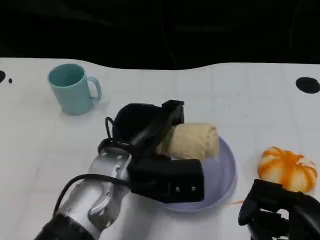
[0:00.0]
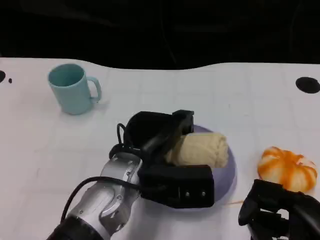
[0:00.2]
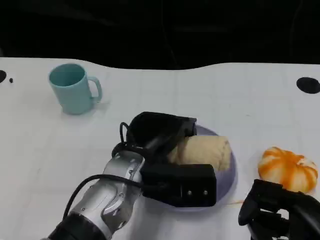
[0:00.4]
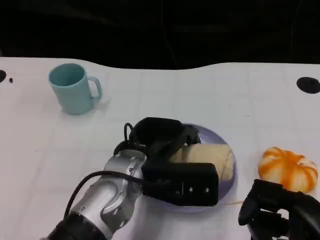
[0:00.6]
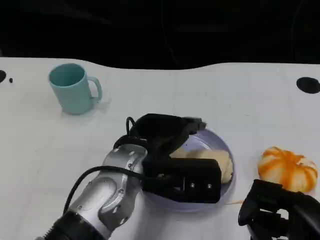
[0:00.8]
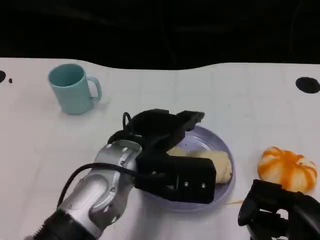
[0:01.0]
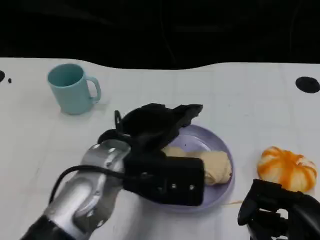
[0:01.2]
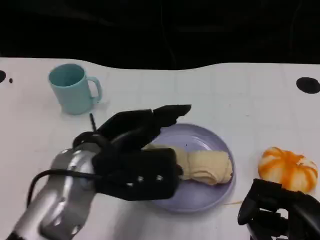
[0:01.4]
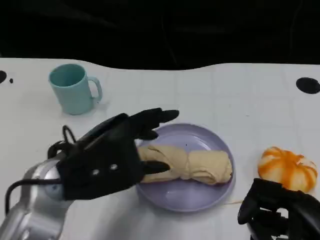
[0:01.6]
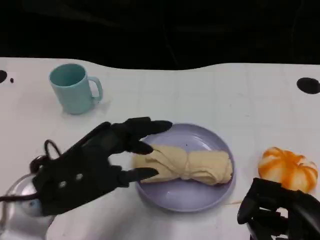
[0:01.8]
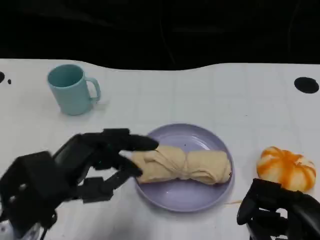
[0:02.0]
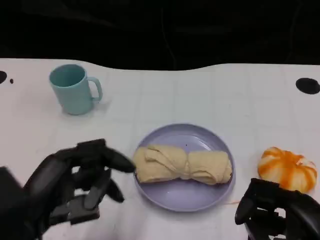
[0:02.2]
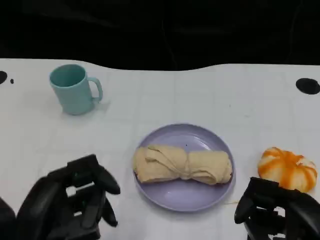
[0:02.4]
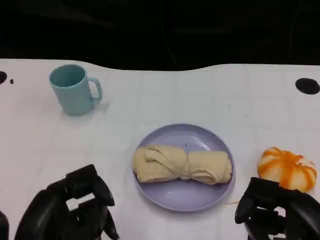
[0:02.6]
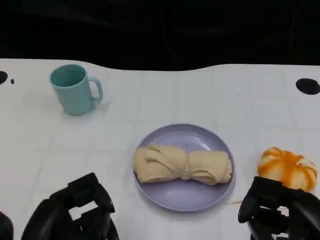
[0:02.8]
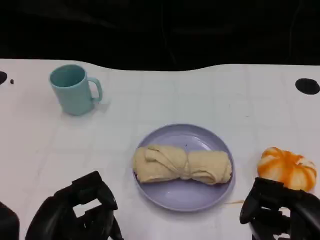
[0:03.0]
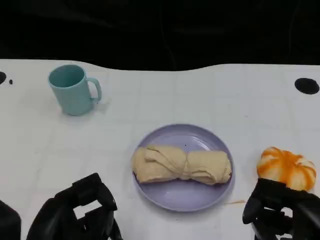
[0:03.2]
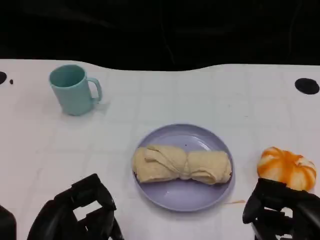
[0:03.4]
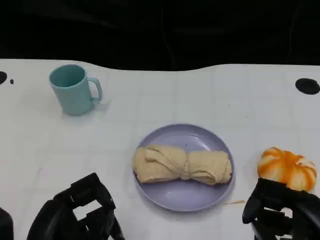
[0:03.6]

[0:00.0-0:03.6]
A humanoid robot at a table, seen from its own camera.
Task of the whole recording: Grasp the towel on the left side of the plate with the left hand and place it into the plate.
0:00.0 to 0:01.8: The left hand travels to the left and backward by some 10 cm.
0:01.8 to 0:03.6: The left hand travels backward and downward by about 10 cm.

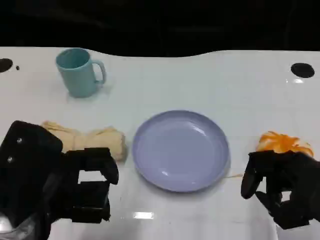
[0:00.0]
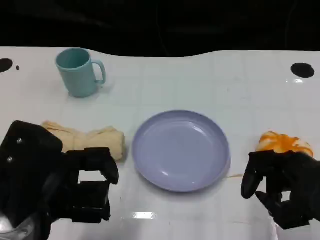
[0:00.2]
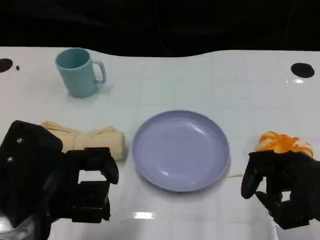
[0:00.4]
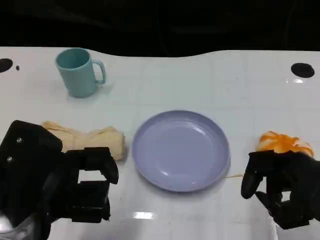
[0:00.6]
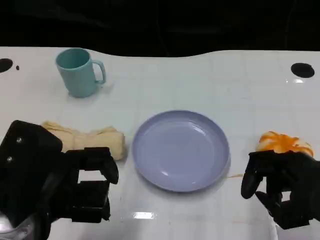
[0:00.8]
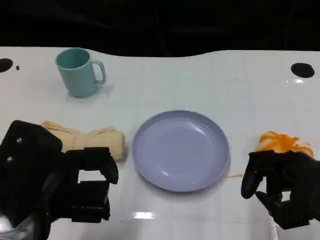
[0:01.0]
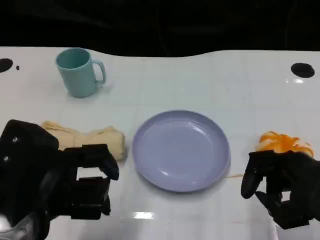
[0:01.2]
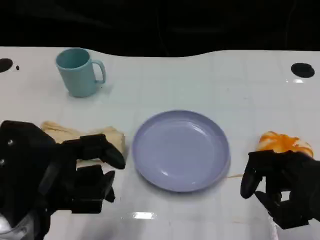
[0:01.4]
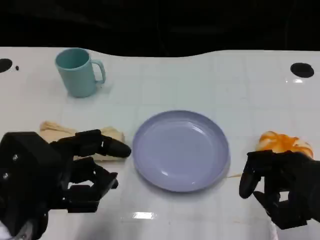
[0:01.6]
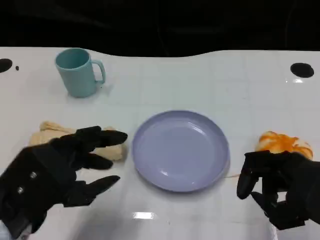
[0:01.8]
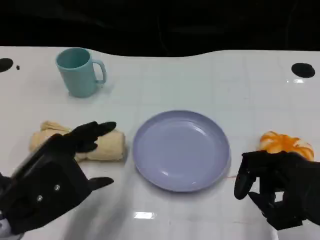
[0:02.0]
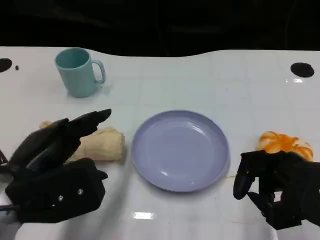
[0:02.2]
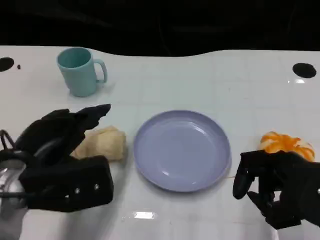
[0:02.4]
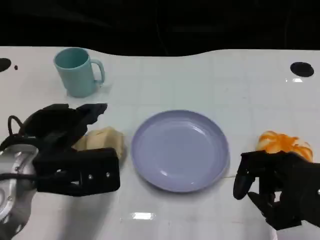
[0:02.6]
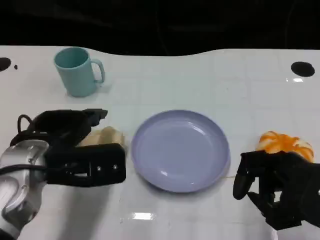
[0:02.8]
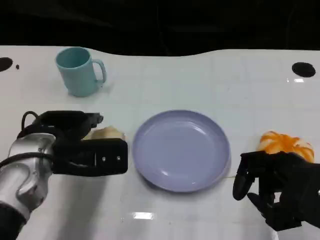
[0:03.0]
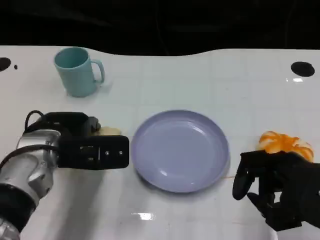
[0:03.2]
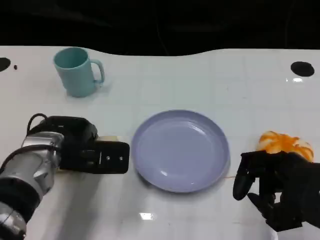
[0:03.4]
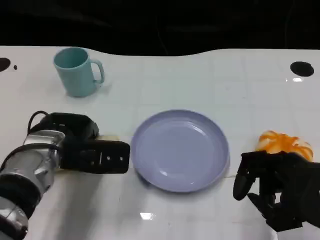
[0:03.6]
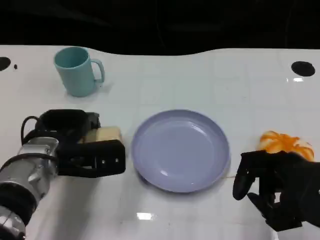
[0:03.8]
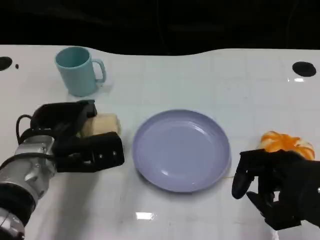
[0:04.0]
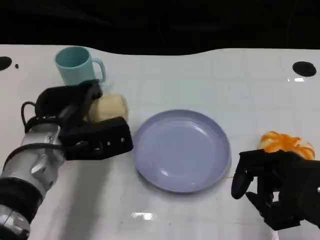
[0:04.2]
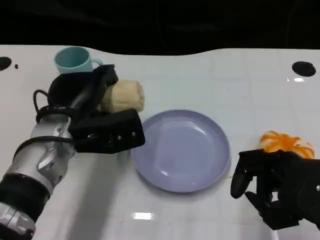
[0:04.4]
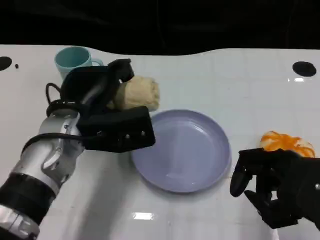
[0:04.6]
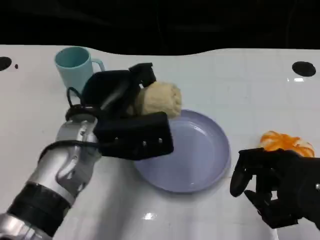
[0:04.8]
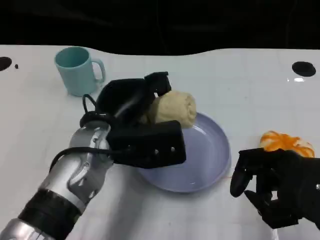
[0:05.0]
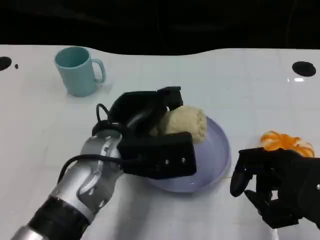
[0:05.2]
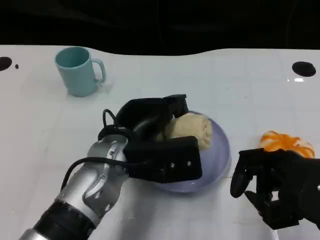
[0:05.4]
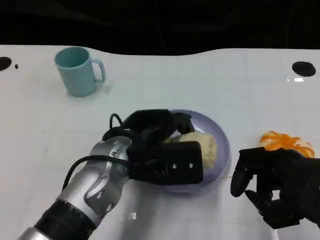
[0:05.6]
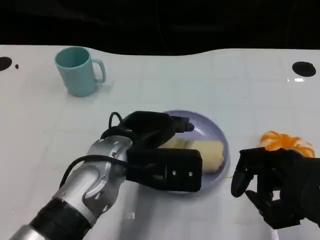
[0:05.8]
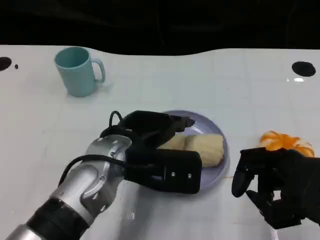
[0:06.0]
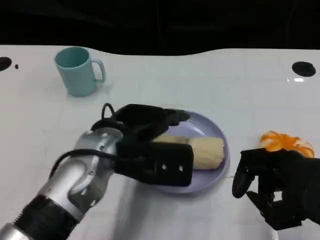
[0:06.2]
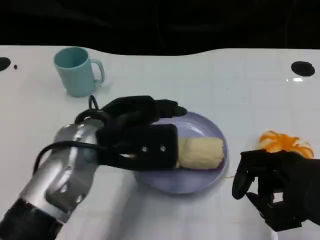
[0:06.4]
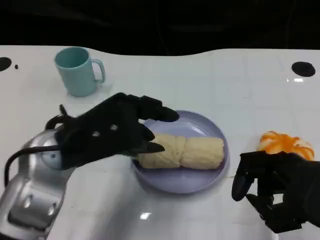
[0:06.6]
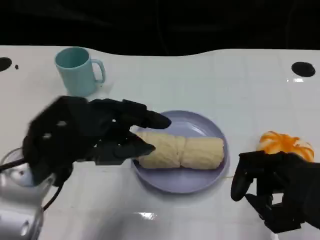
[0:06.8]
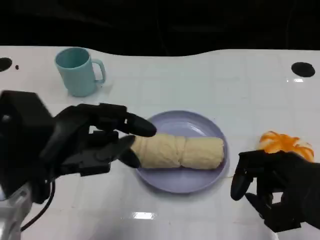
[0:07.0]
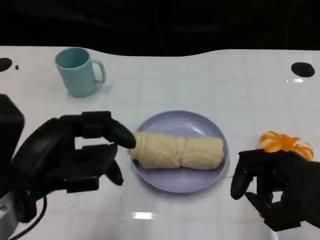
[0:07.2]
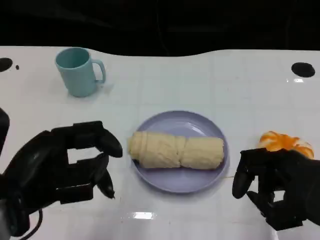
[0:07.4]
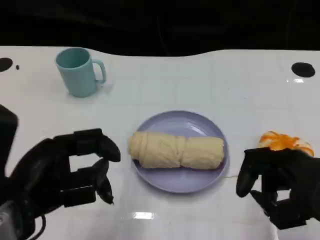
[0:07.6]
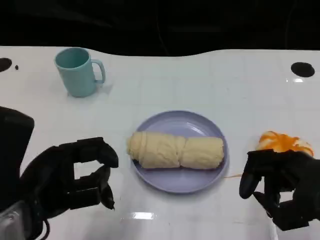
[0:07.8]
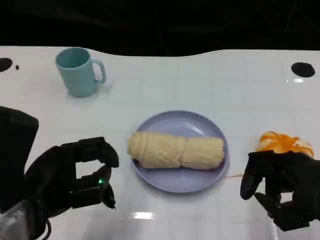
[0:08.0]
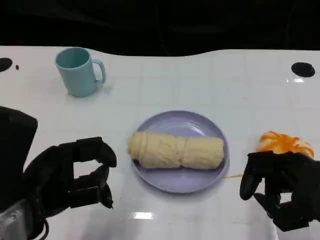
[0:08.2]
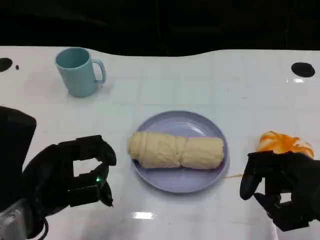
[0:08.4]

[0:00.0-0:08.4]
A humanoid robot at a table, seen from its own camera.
Task of the whole recording: Grasp the towel on the left side of the plate with the left hand and place it into the plate.
0:00.0 to 0:01.4: The hands move only a little.
0:01.4 to 0:02.8: The left hand travels forward by some 10 cm.
0:02.8 to 0:04.2: There are only small adjustments of the hands.
0:04.2 to 0:05.6: The left hand travels to the right by approximately 10 cm.
0:05.6 to 0:07.0: The left hand heads to the left, backward and upward, covering about 15 cm.

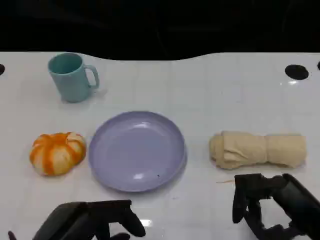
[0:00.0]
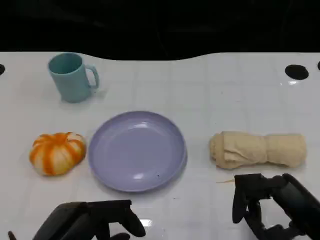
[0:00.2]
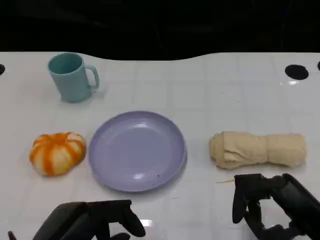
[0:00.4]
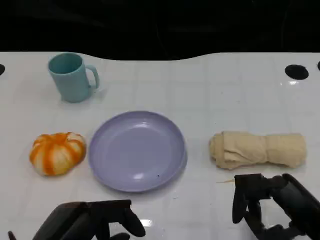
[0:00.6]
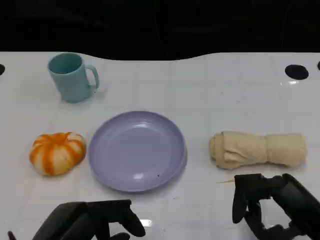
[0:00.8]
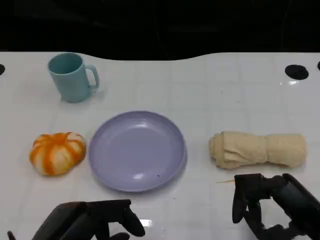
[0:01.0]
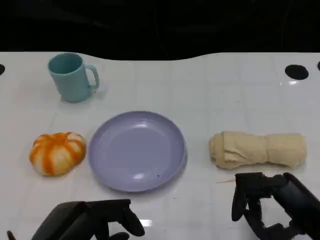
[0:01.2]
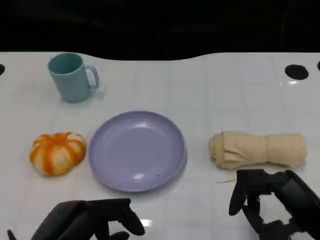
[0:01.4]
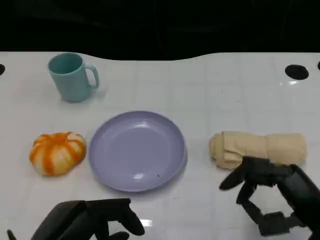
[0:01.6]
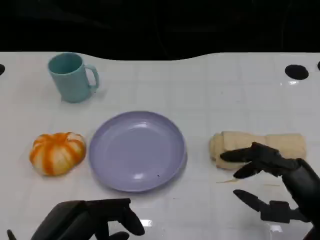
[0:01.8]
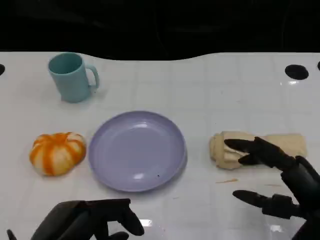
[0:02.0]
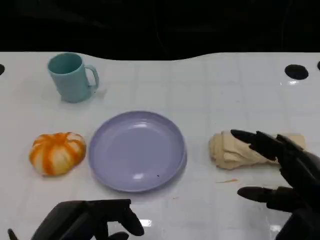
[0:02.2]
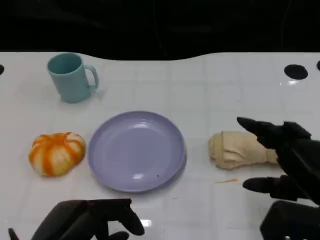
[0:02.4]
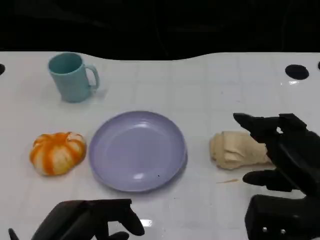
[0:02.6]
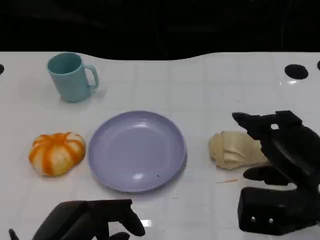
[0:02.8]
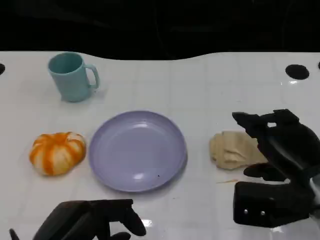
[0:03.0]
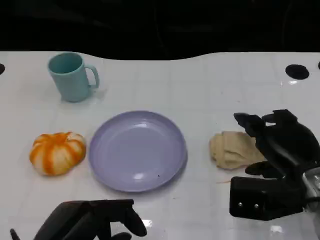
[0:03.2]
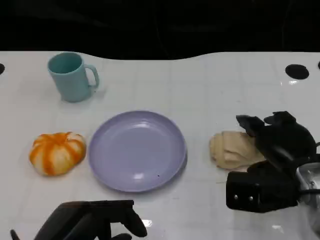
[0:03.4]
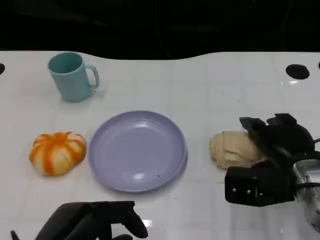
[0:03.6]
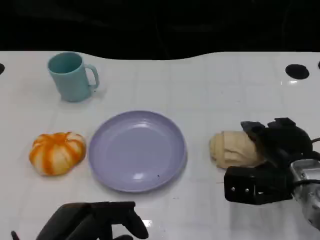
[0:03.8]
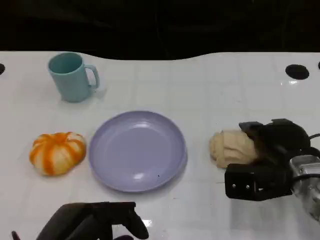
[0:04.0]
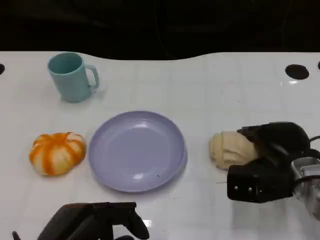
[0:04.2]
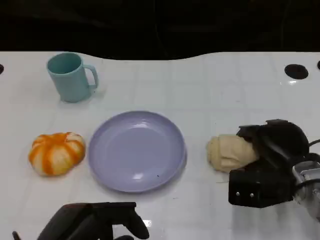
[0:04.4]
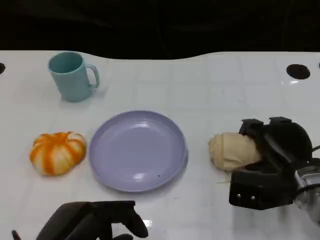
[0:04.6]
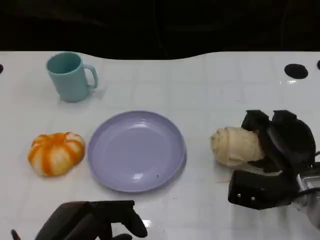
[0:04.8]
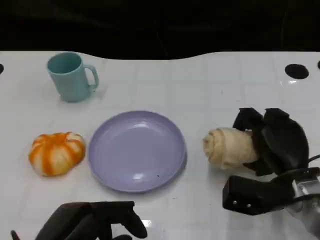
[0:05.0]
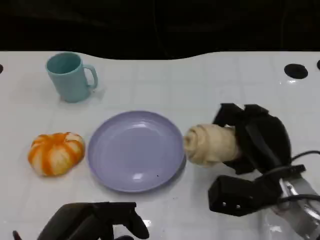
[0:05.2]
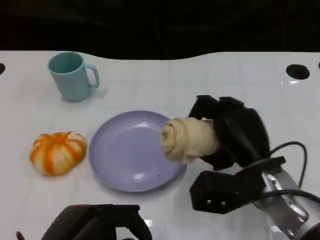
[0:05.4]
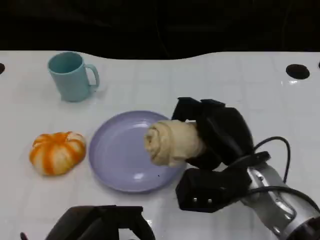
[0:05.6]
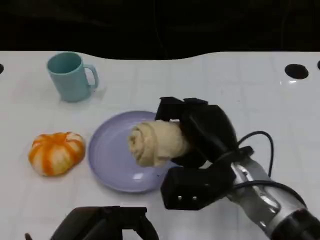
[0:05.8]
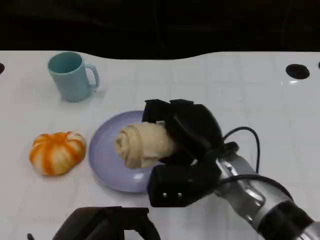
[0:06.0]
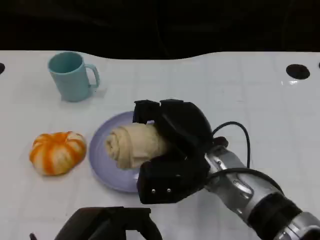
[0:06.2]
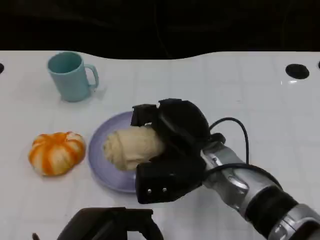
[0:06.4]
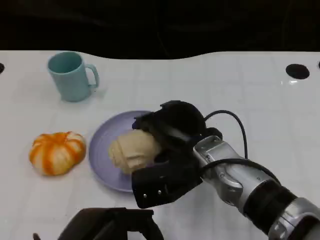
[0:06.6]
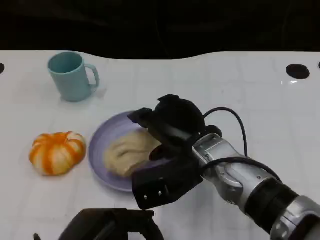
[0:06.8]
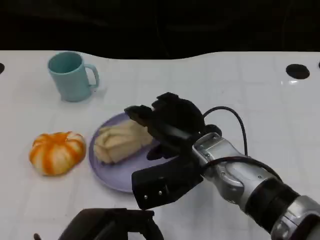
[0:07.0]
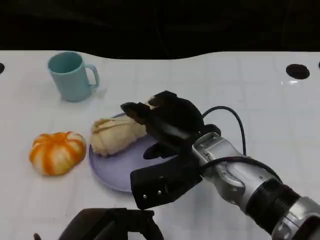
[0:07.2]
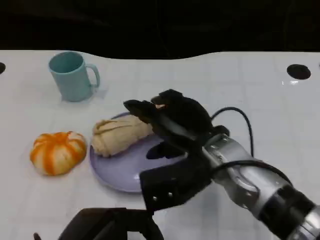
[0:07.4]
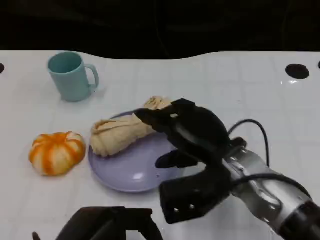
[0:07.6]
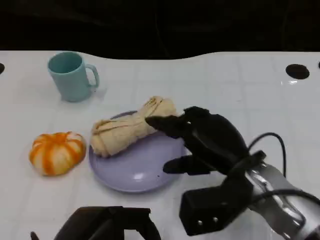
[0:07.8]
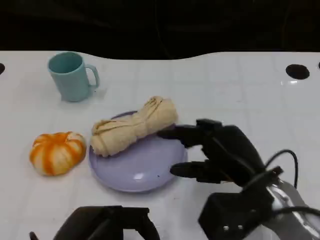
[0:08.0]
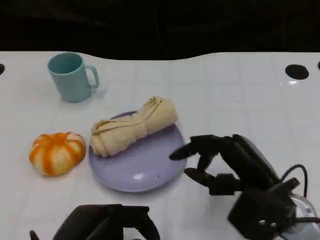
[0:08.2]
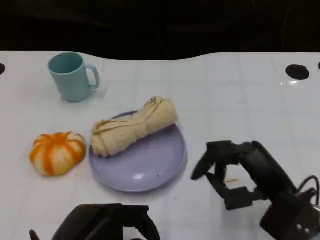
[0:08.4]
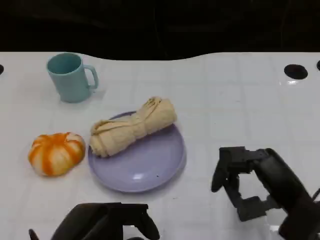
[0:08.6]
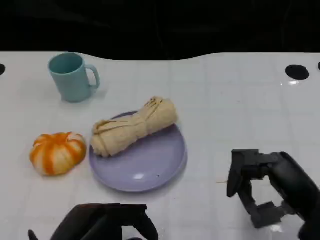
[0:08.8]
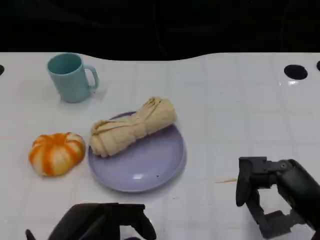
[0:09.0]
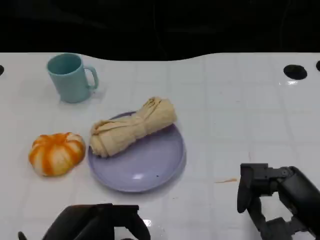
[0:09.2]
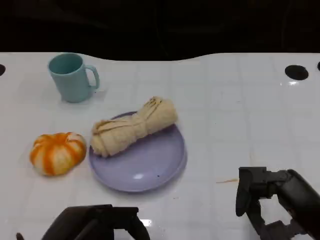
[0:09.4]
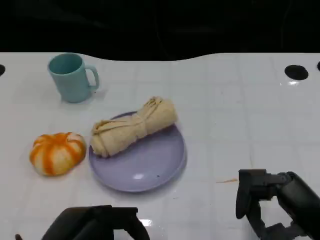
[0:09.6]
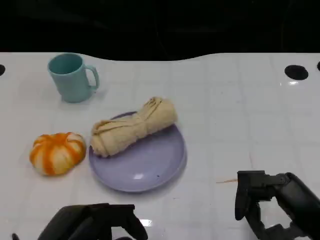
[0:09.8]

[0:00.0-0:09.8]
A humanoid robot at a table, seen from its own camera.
Task of the whole recording: Grasp the towel on the left side of the plate with the left hand and place it into the plate.
0:00.0 to 0:01.4: Neither hand changes place.
0:01.4 to 0:02.8: The right hand travels forward by some 5 cm.
0:02.8 to 0:04.2: The right hand goes some 10 cm forward and downward.
0:04.2 to 0:05.6: The right hand is displaced to the left by approximately 10 cm.
0:05.6 to 0:07.0: The right hand shifts some 5 cm to the left.
0:07.0 to 0:08.4: The right hand heads to the right and backward, covering some 15 cm.
0:08.4 to 0:09.8: The right hand changes place by approximately 5 cm.
